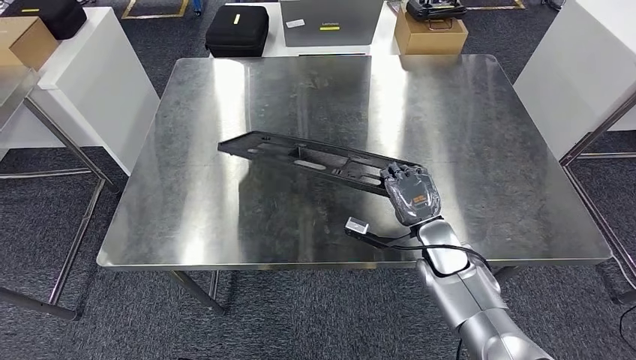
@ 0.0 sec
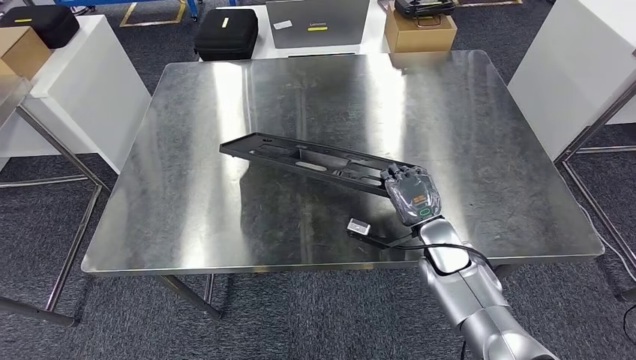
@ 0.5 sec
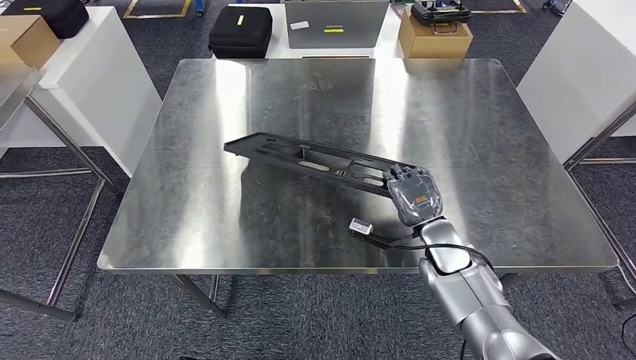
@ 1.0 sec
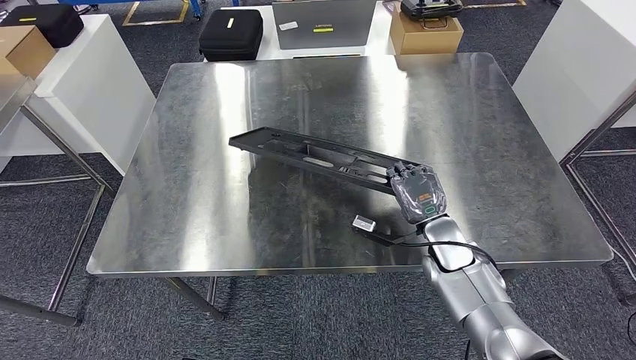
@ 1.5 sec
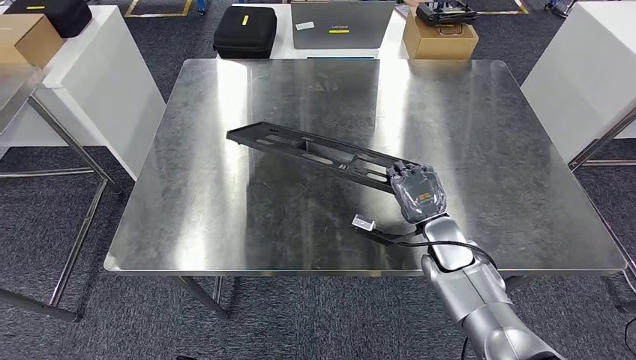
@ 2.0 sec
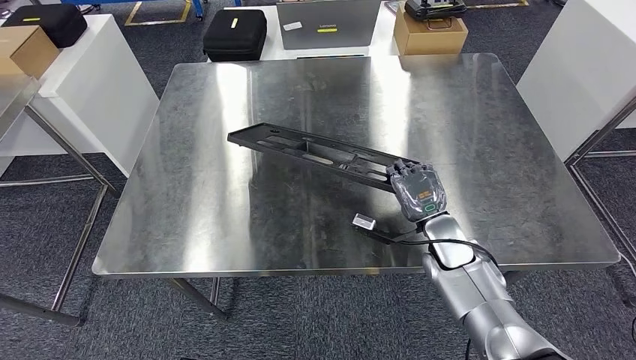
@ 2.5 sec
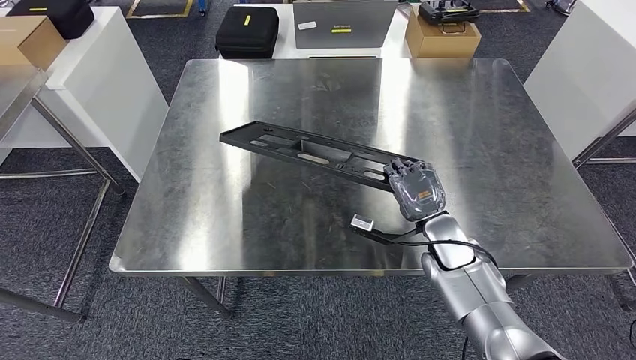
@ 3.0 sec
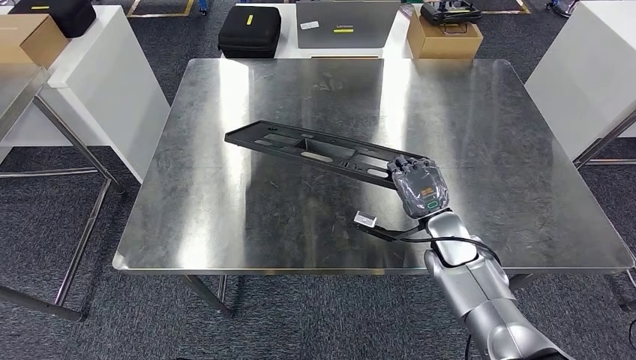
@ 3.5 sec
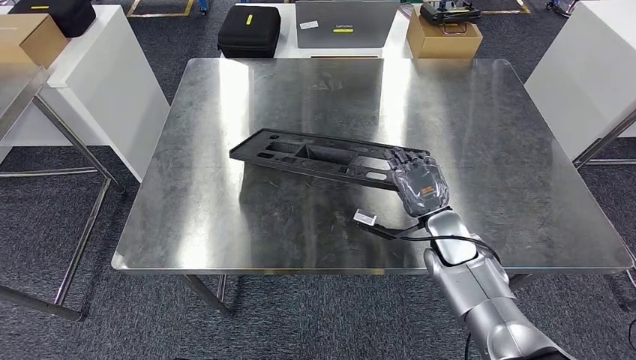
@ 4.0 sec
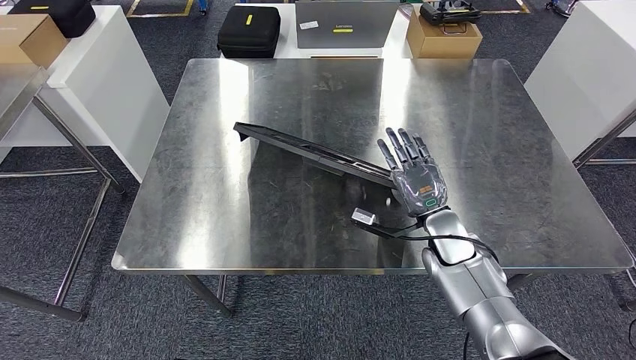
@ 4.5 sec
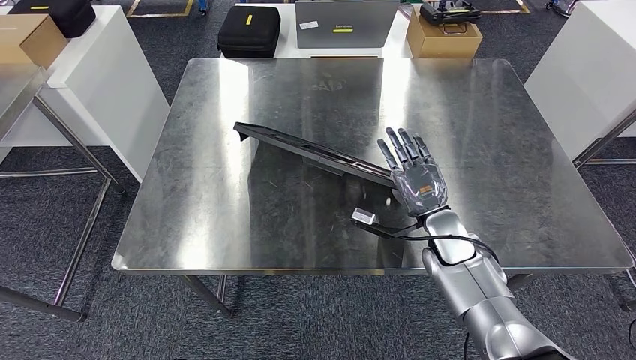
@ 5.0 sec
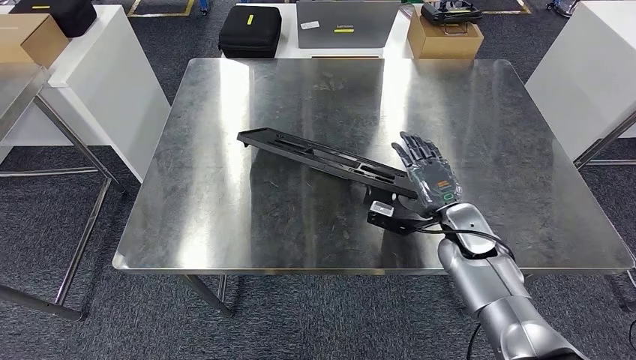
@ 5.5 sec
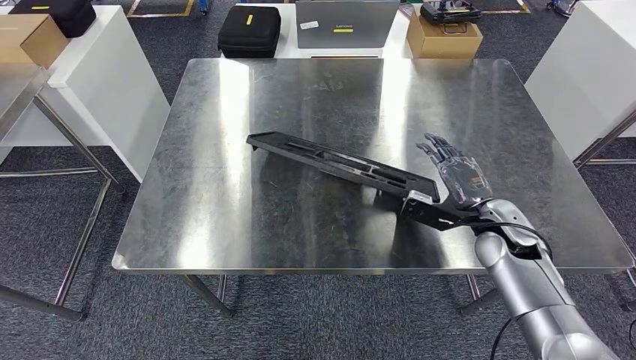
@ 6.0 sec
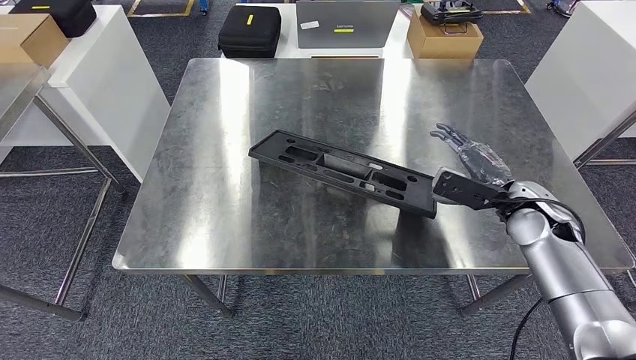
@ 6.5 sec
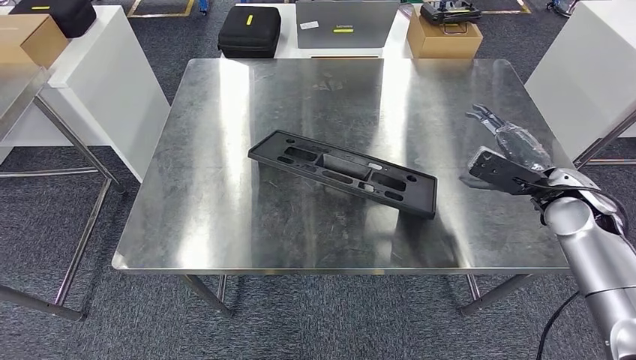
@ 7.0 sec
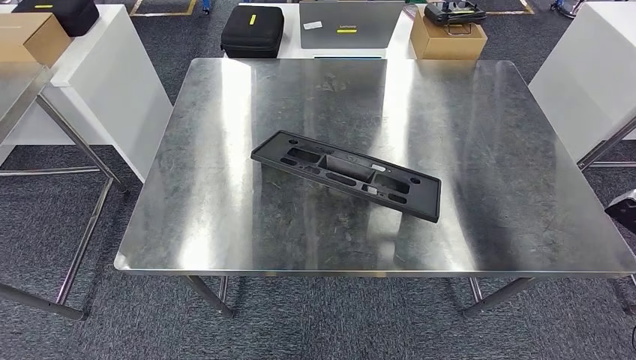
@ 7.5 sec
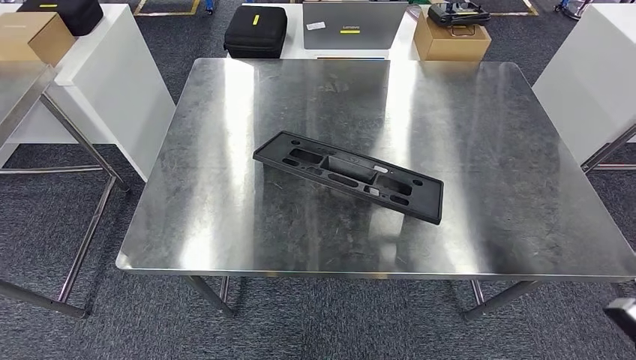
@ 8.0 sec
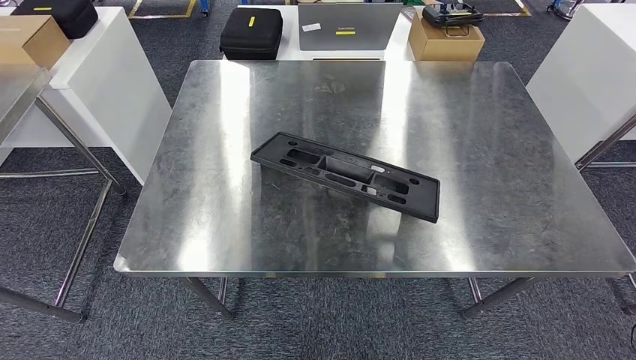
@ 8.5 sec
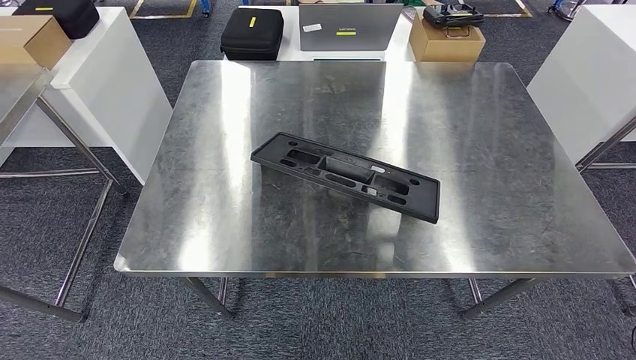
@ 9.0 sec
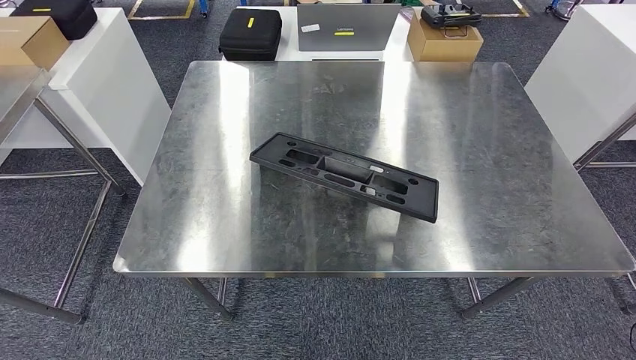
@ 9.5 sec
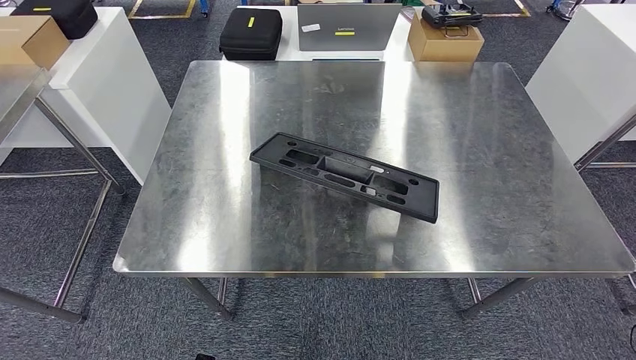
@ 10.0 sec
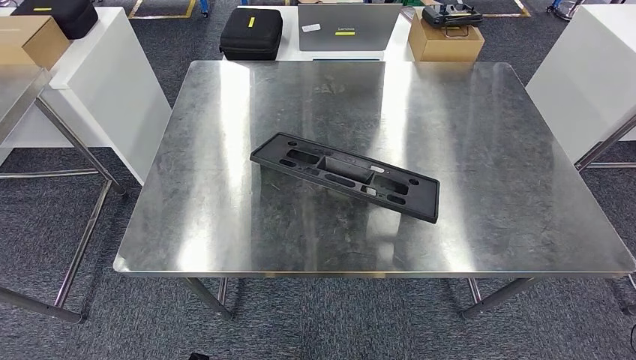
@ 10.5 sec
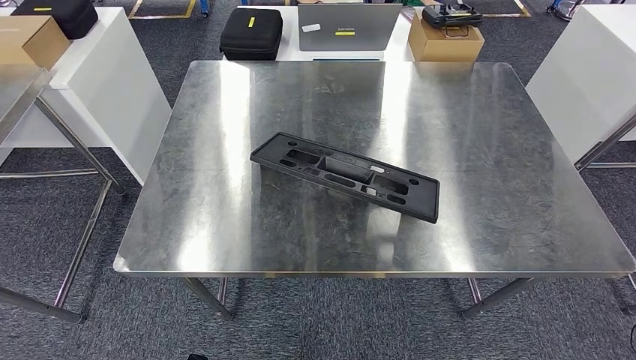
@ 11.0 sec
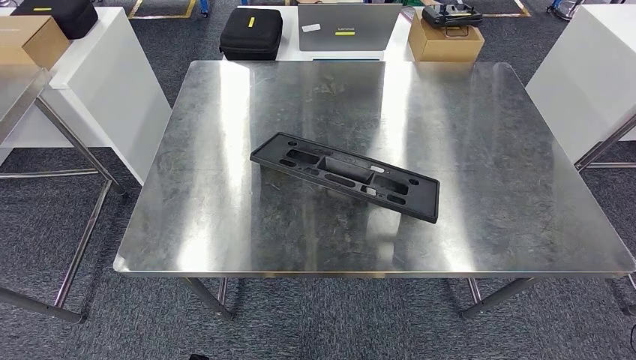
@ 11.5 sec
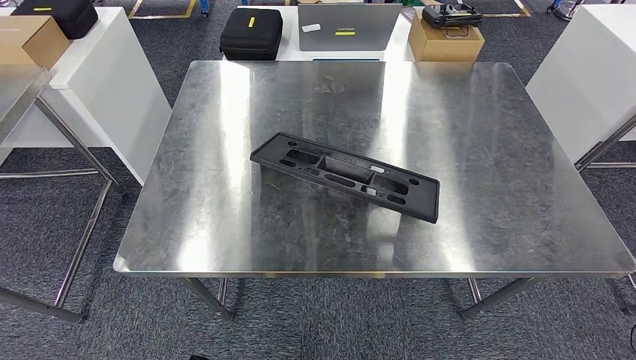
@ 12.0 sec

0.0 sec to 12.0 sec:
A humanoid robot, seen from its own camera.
Step, 0.5 sec to 7.5 sec: Insert the large material into the corresponding slot on the workbench.
0.0 sec to 2.0 sec: The hands move only a little.
2.0 sec to 4.0 sec: Both hands stay about where they are.
4.0 sec to 6.0 sec: The right hand moves to the right, approximately 10 cm.
8.0 sec to 10.0 sec: The right hand travels downward and to the left by roughly 40 cm.

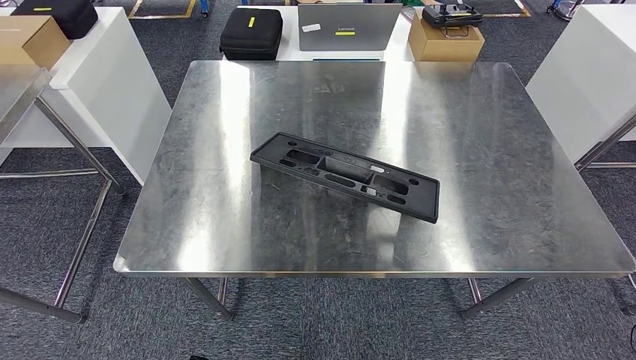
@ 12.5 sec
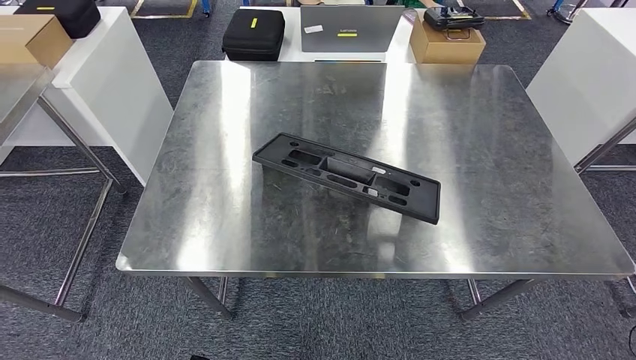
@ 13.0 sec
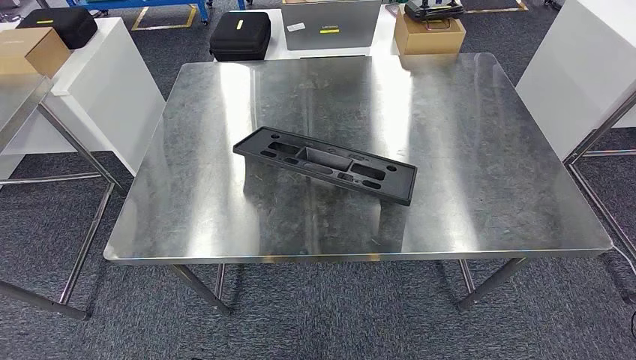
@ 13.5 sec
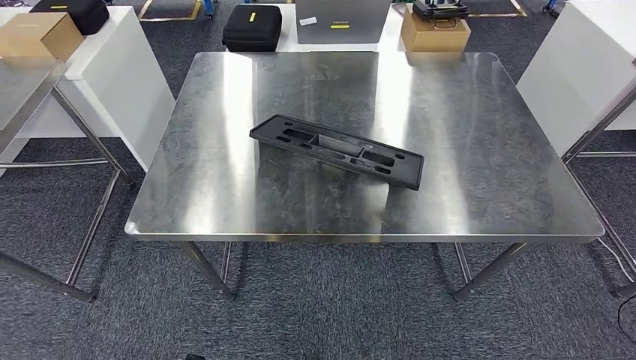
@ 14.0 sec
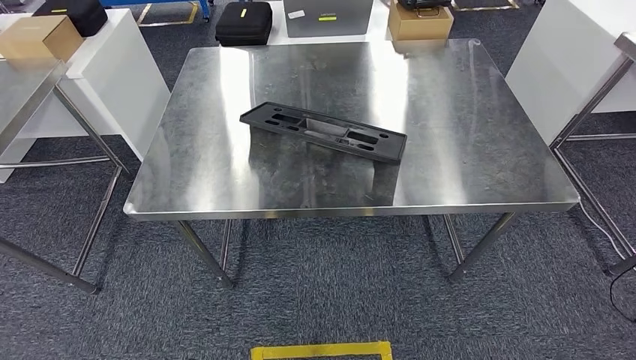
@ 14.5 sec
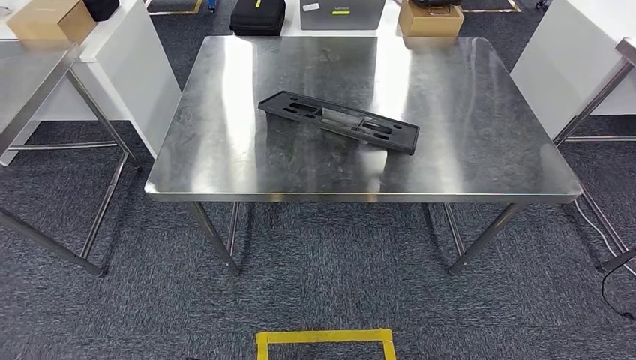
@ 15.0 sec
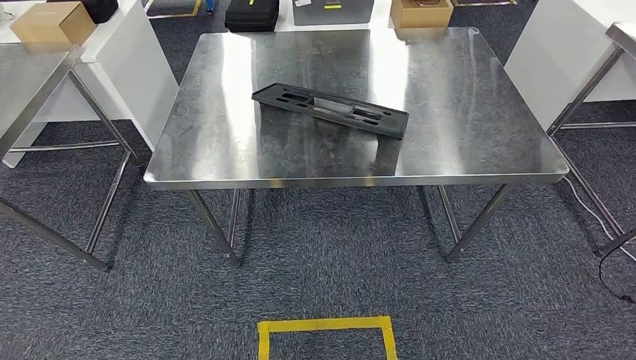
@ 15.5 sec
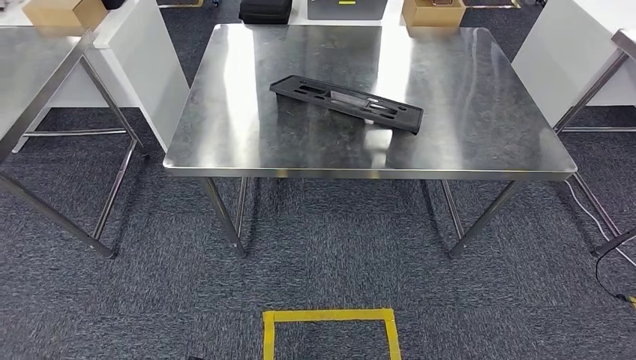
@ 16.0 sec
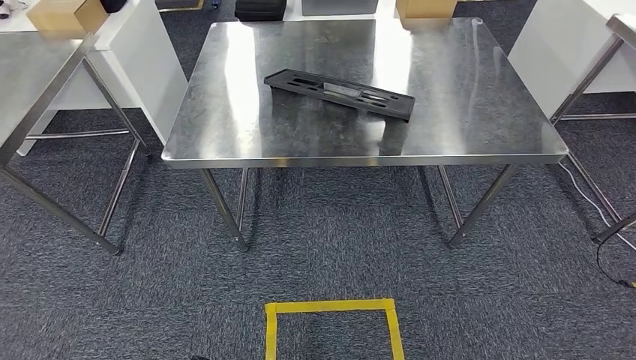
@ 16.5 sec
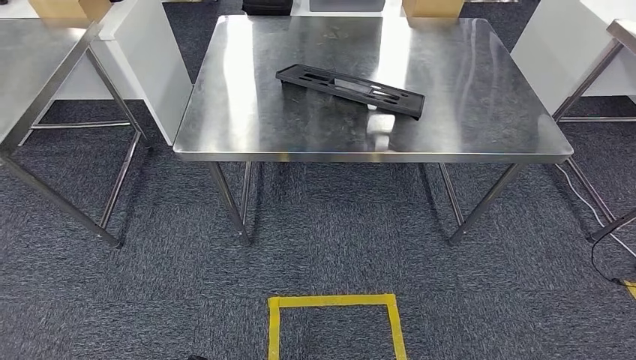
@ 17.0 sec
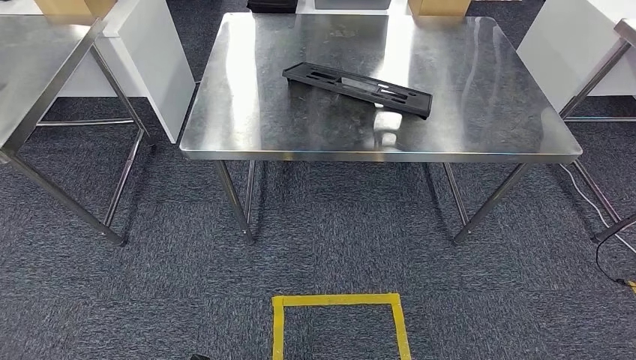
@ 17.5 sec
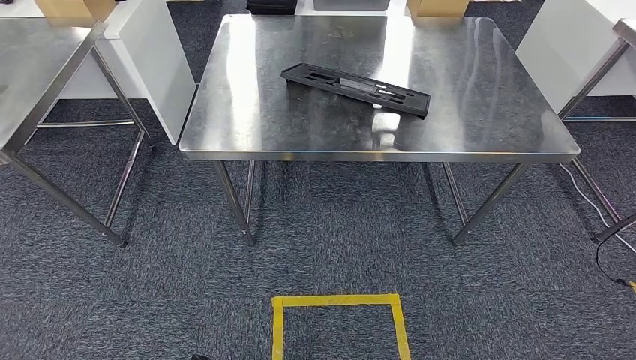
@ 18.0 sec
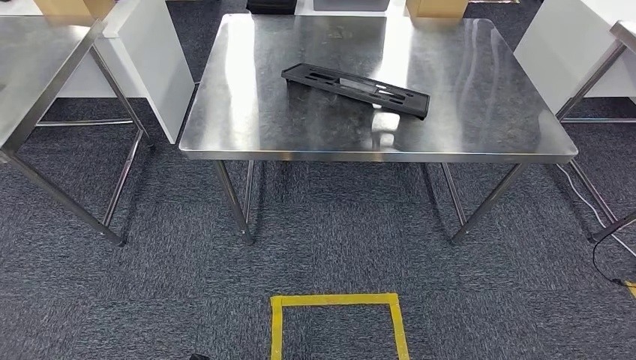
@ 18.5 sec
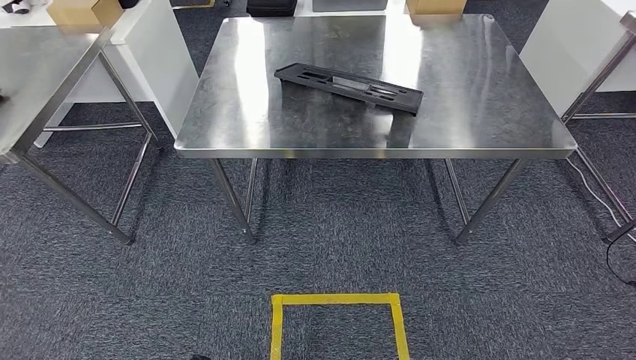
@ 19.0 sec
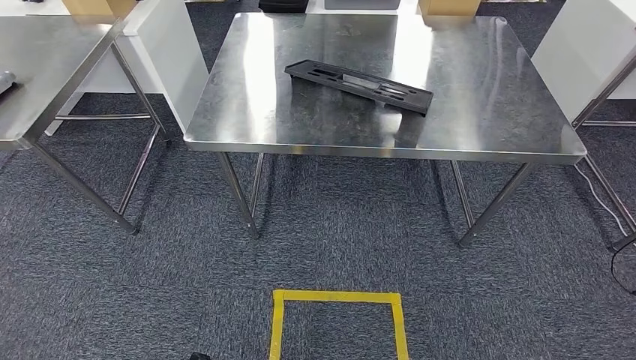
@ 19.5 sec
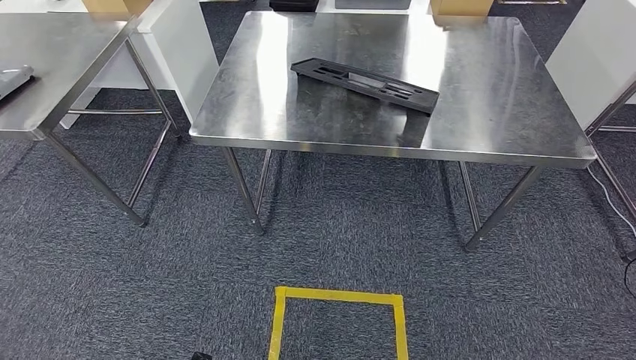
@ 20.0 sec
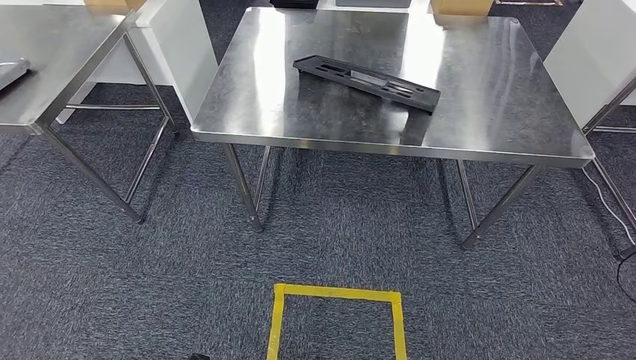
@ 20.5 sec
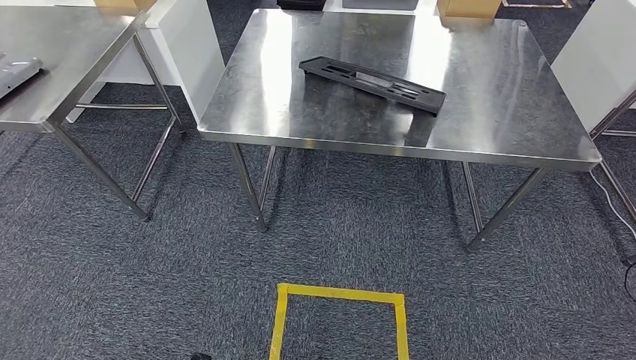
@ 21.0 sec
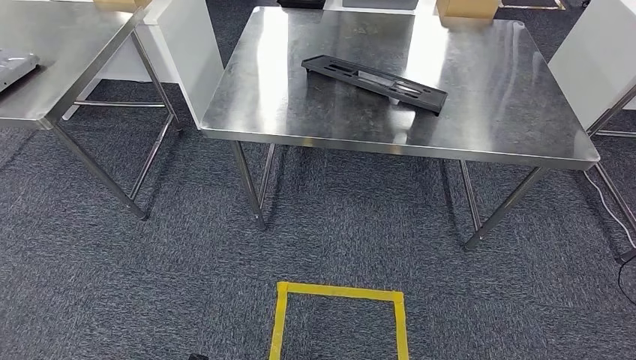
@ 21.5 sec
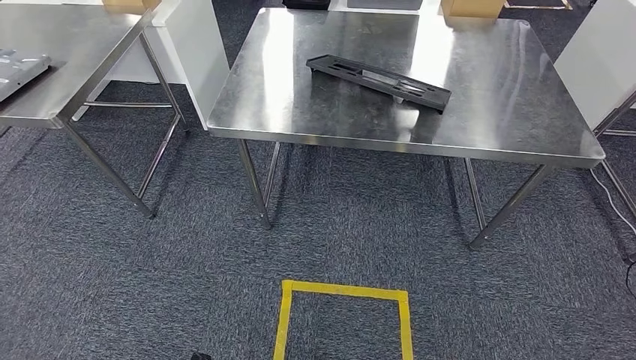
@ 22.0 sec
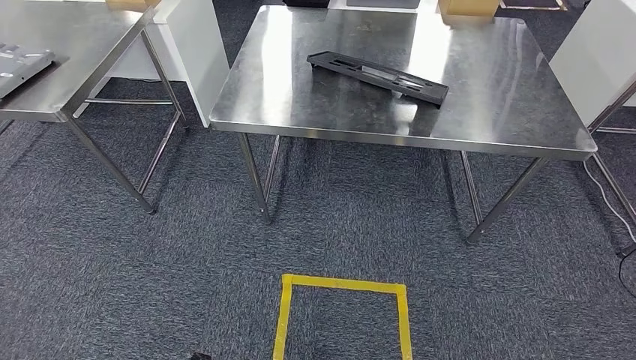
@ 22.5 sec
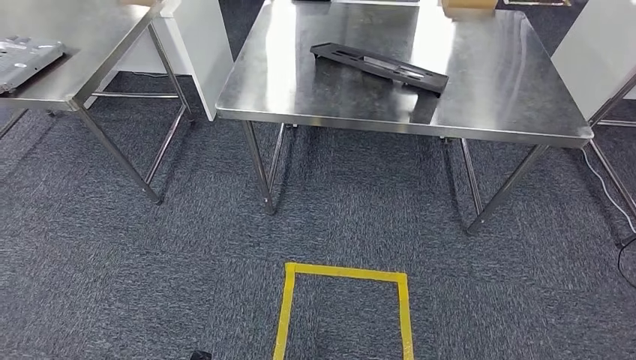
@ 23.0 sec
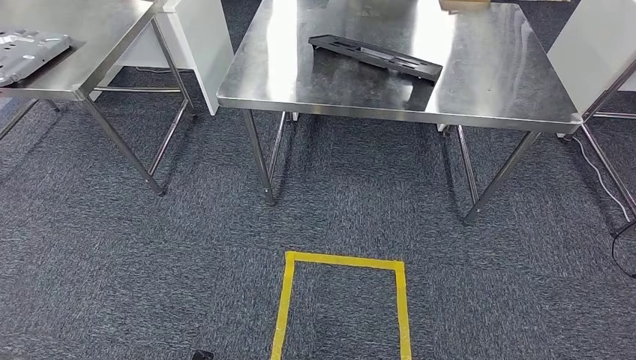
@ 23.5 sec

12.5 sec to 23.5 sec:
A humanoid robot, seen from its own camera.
20.0 sec to 21.5 sec: Both hands stay about where they are.
